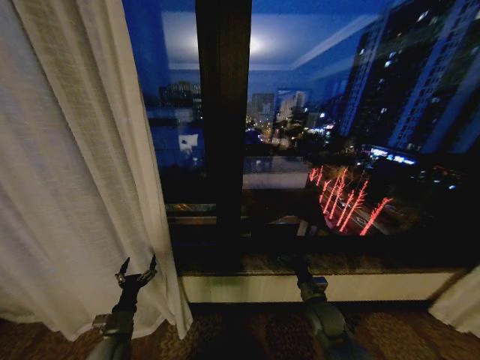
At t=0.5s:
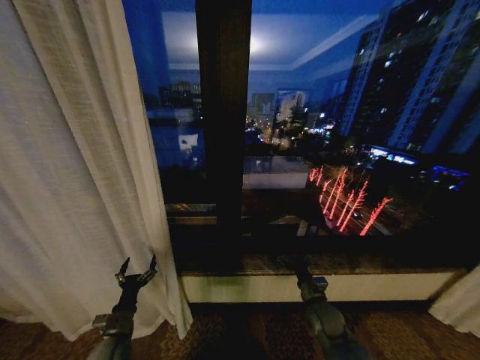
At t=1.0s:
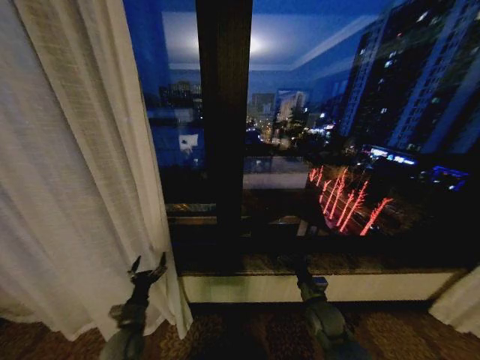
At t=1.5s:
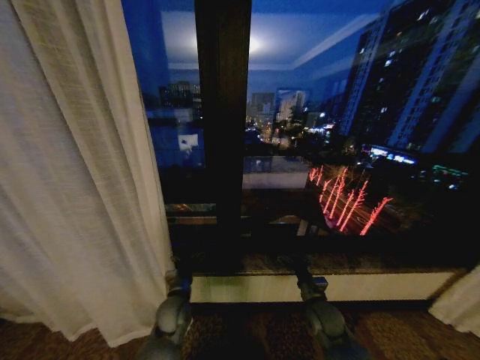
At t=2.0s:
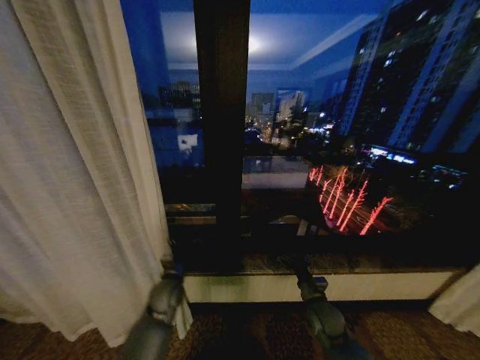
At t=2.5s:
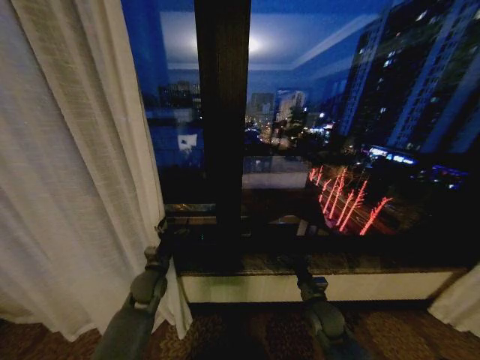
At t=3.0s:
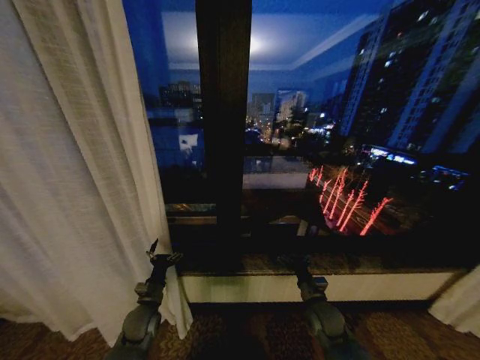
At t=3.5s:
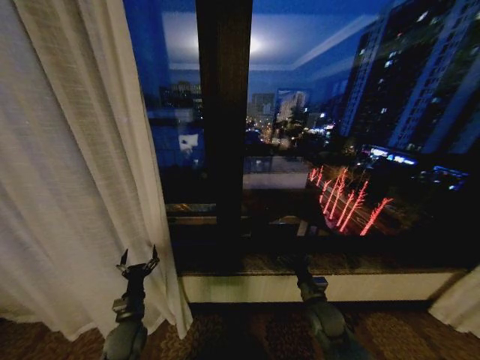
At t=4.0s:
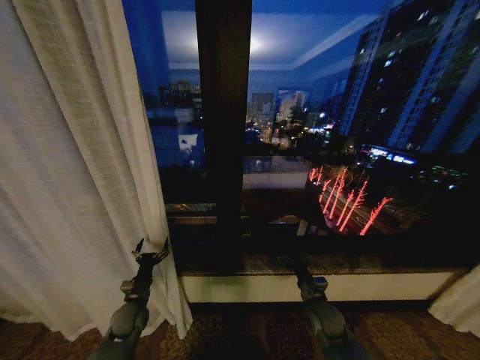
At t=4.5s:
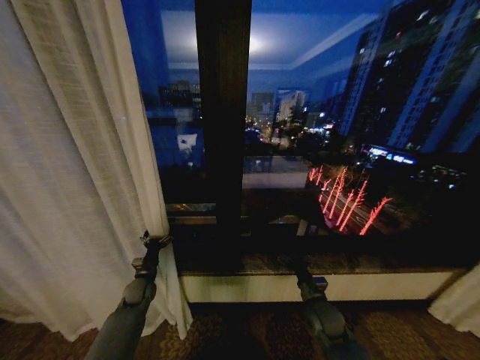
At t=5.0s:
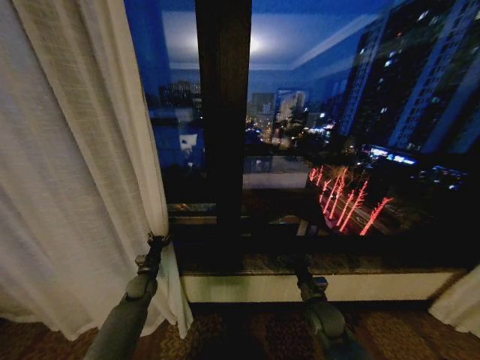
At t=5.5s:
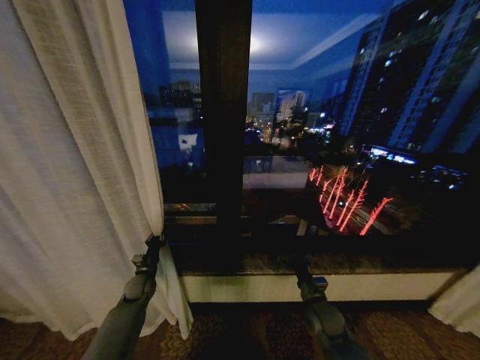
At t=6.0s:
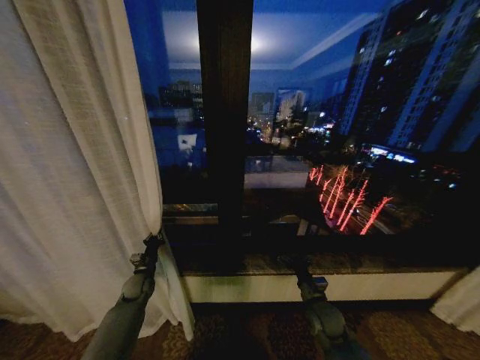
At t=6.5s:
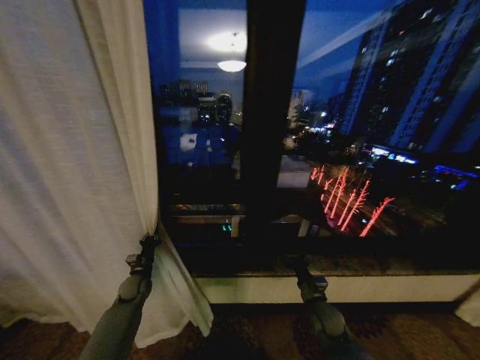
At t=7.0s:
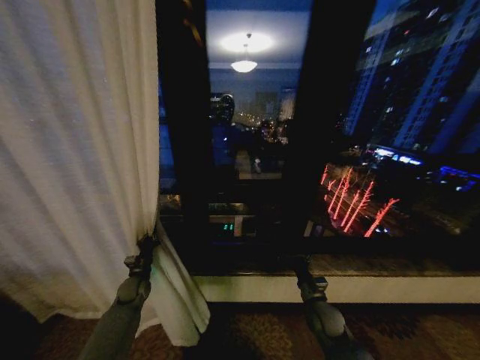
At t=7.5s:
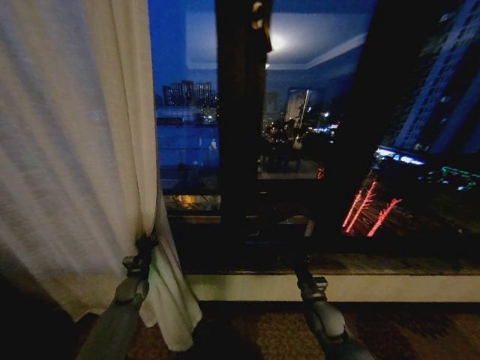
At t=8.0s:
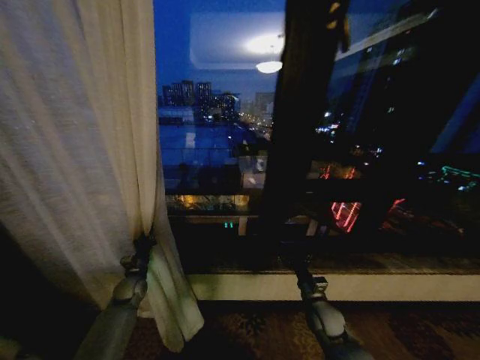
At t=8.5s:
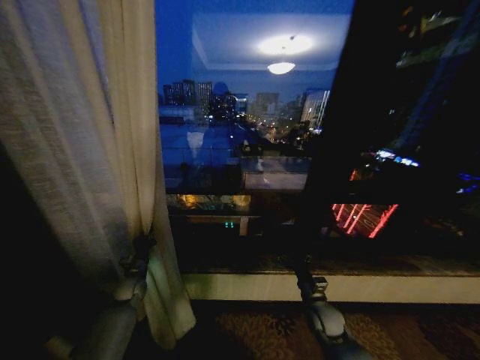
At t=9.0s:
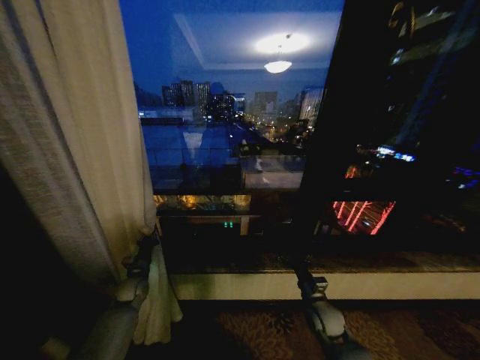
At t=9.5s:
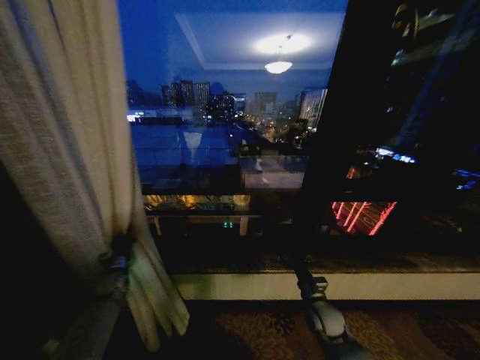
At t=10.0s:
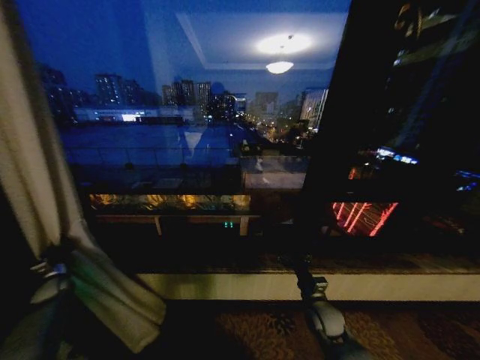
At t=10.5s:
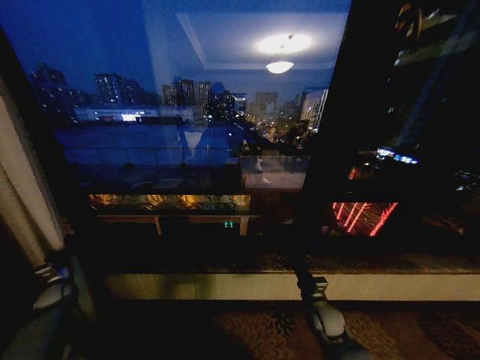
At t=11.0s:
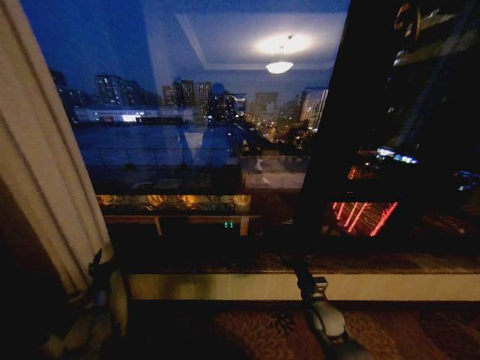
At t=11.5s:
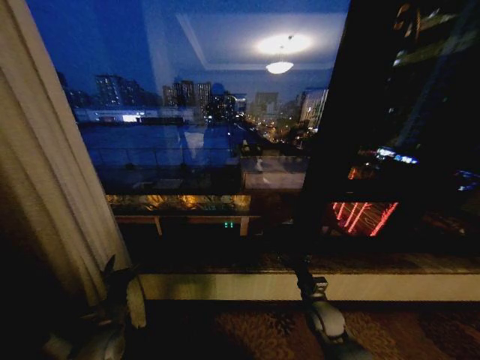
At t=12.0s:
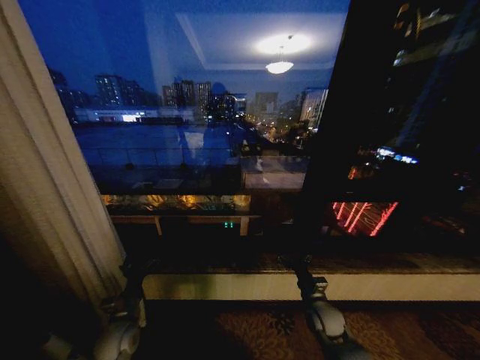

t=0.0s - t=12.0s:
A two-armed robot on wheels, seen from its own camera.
Task of the whole recording: Open the curtains by pulling them apart, changing their state from closed to fully open.
t=0.0s - t=2.0s: The left gripper heads to the right, forward and upward, covering approximately 20 cm.
t=2.0s - t=4.0s: The left gripper moves to the left and downward, some 15 cm.
t=4.0s - t=6.0s: The left gripper goes approximately 10 cm forward, and closes.
t=8.0s - t=10.0s: The left gripper moves to the left, roughly 25 cm.
t=10.0s - t=12.0s: The left gripper shifts roughly 30 cm to the right and backward, and opens its fingers.

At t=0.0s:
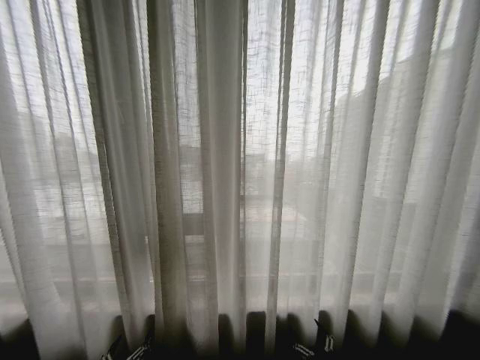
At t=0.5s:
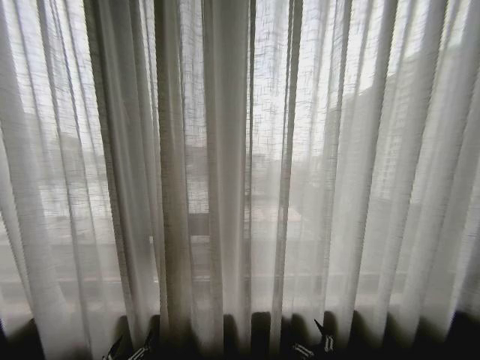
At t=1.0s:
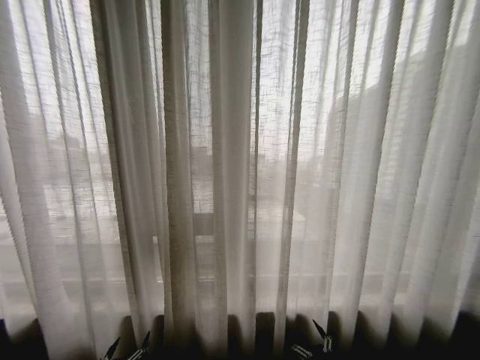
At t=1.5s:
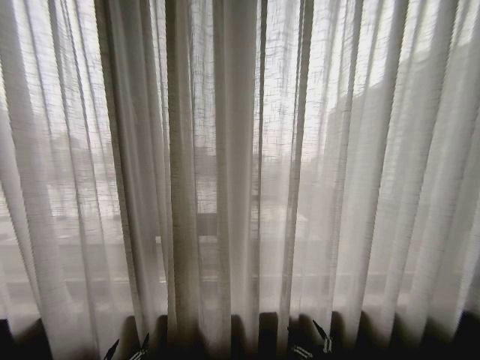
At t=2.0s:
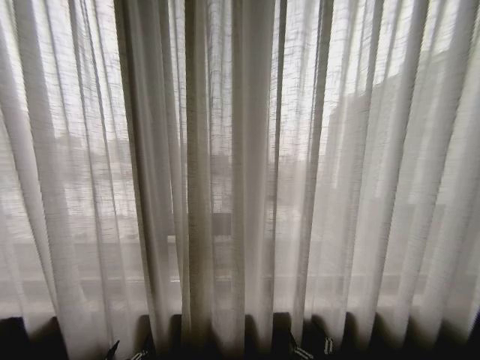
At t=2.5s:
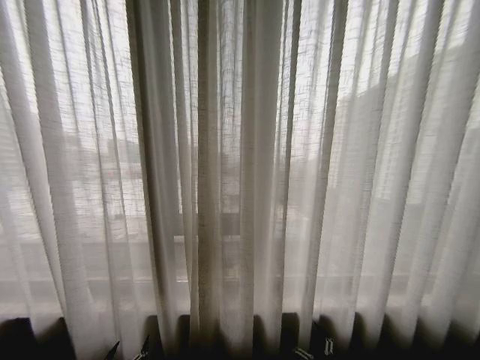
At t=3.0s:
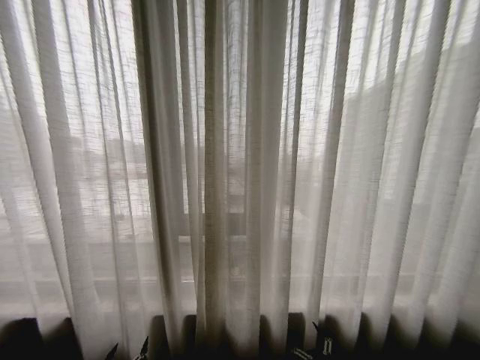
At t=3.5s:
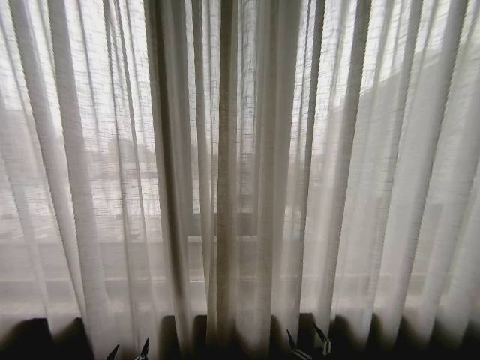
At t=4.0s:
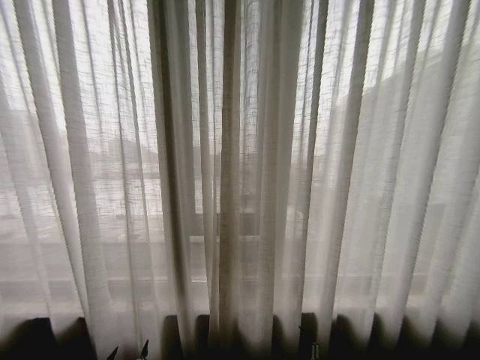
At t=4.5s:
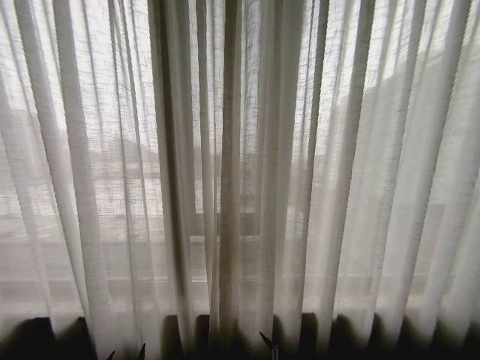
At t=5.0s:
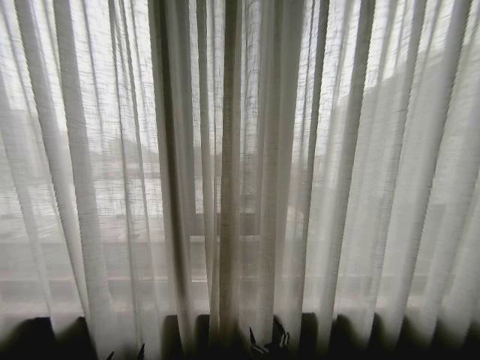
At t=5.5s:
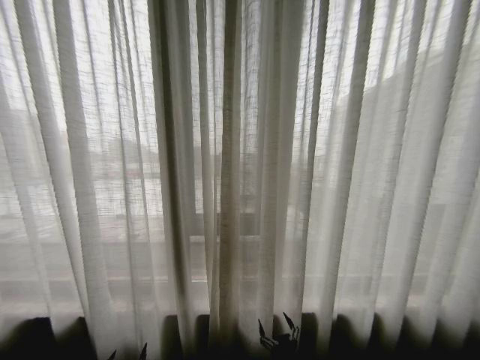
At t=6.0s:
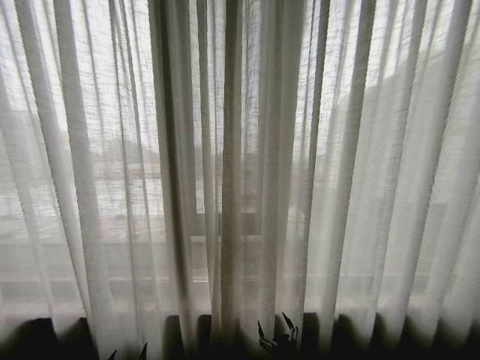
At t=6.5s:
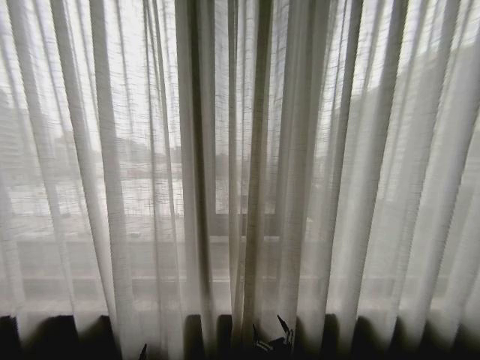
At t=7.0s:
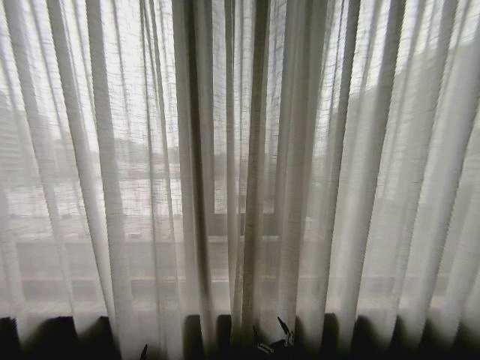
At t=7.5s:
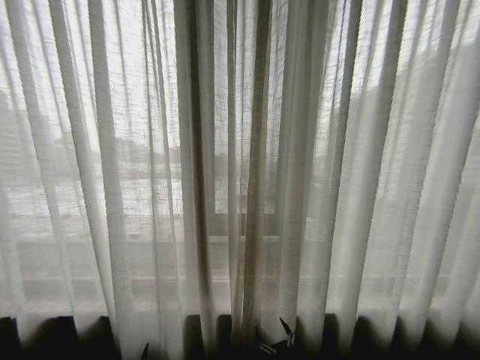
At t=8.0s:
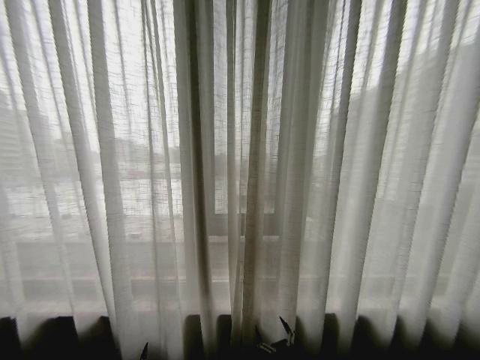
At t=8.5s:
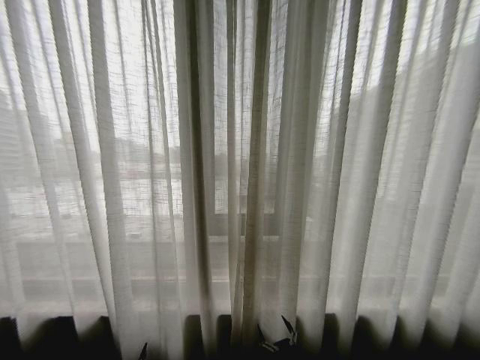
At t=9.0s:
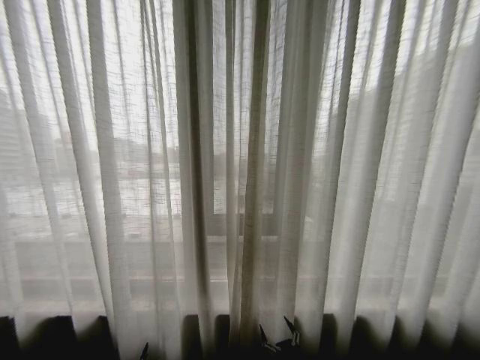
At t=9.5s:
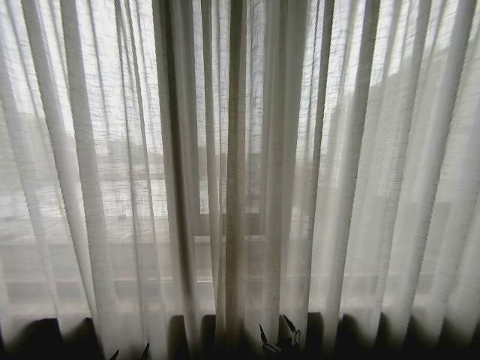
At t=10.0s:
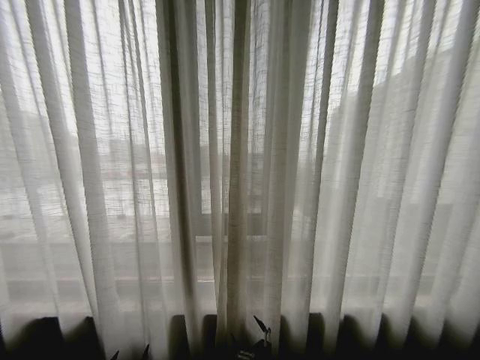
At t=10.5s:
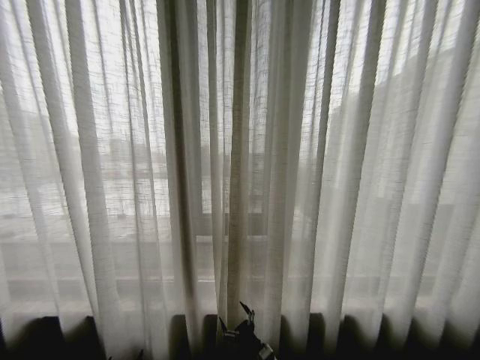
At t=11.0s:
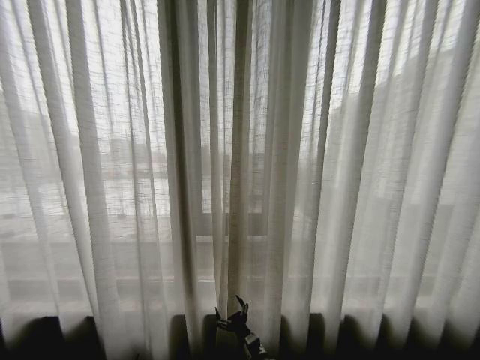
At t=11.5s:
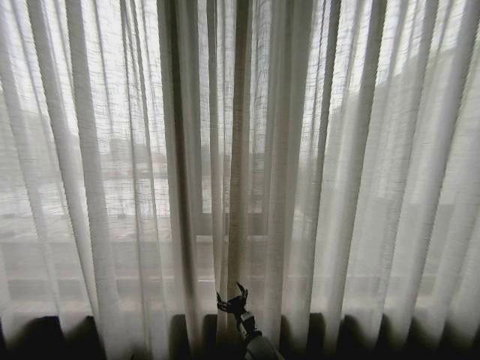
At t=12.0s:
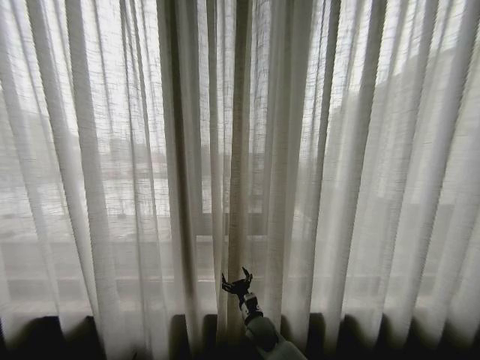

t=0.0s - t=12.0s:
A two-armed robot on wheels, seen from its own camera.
Task of the whole recording: Open the curtains by pulling them apart, changing their state from closed to fully open.
t=4.0s - t=6.0s: The right gripper moves to the left, approximately 10 cm.
t=10.0s - t=12.0s: The right gripper travels forward, to the left and upward by some 20 cm.

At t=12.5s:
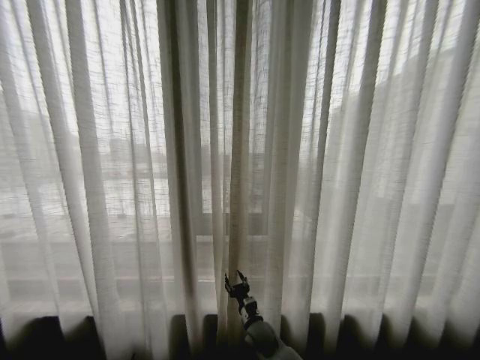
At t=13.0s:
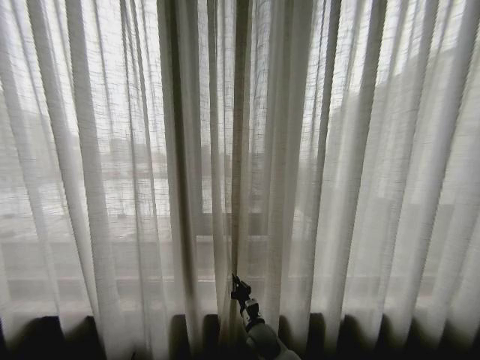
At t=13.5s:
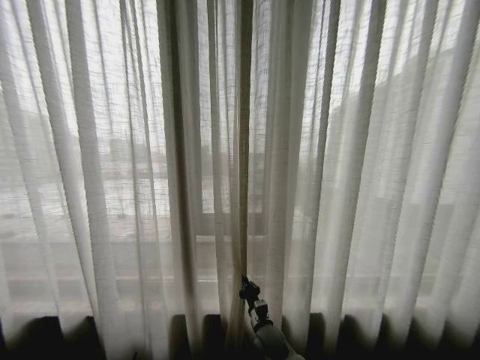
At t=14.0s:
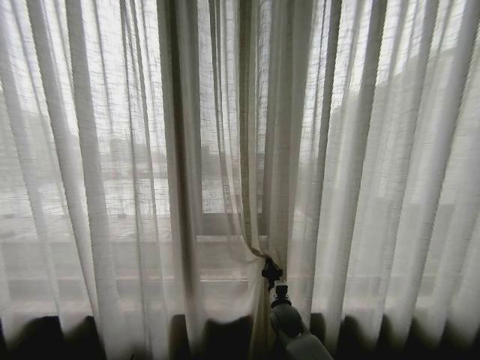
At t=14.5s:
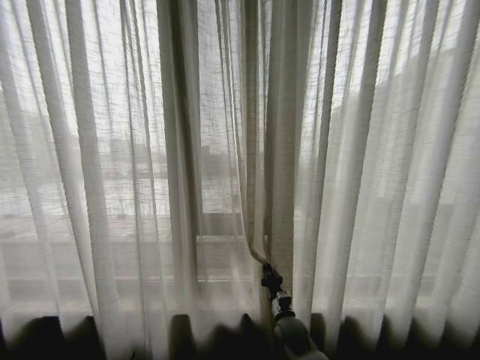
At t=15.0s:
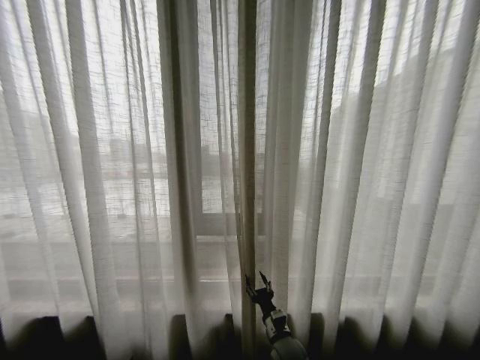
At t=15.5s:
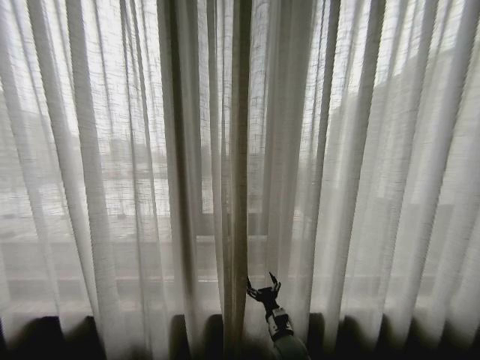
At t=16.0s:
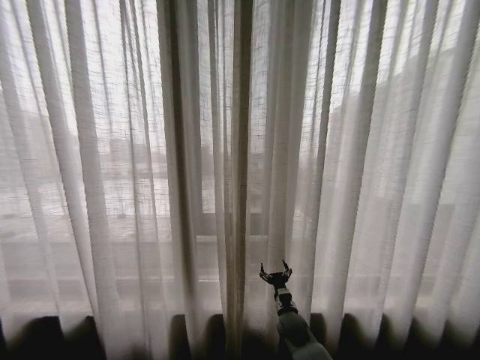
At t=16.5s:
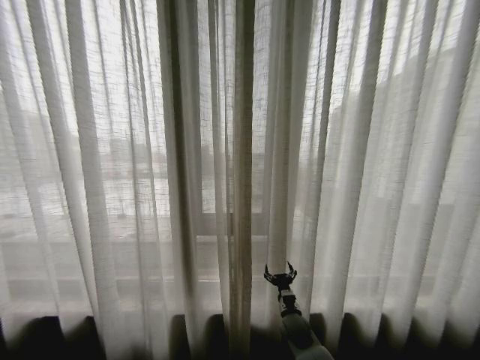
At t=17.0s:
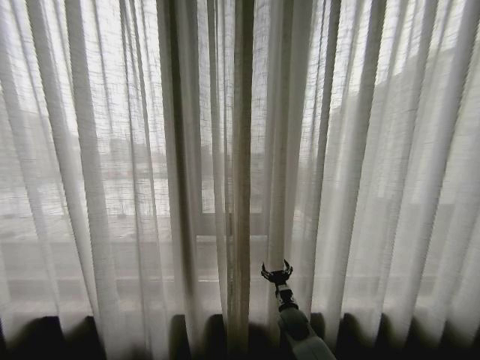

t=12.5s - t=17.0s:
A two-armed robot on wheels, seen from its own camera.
Task of the whole recording: Open the curtains by pulling them apart, changing their state from closed to fully open.
t=12.5s - t=14.5s: The right gripper goes approximately 10 cm to the right, and closes up.
t=14.5s - t=17.0s: The right gripper opens up.
